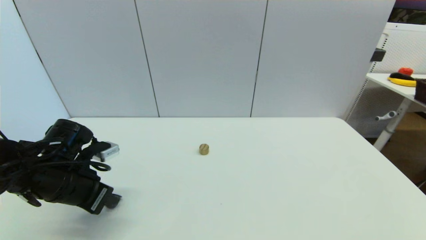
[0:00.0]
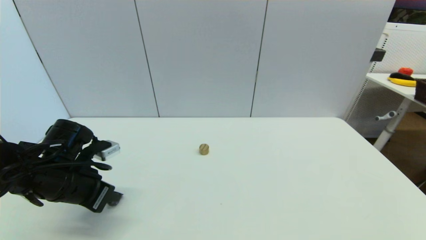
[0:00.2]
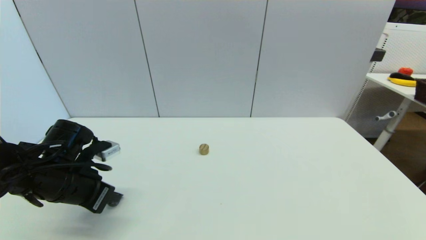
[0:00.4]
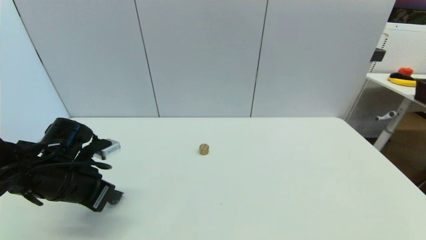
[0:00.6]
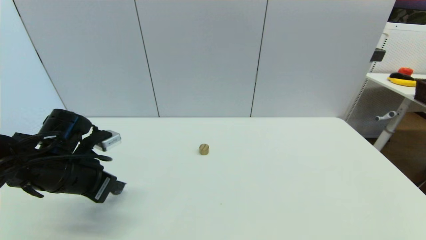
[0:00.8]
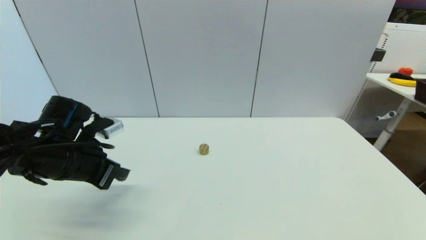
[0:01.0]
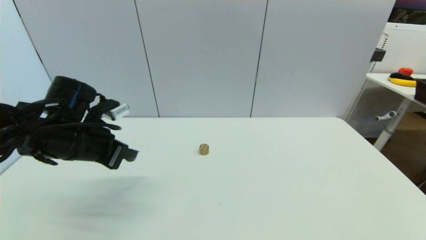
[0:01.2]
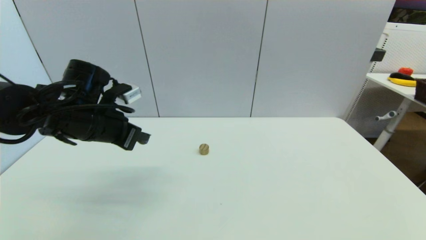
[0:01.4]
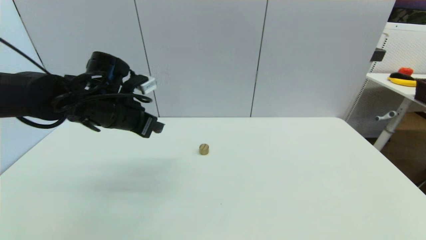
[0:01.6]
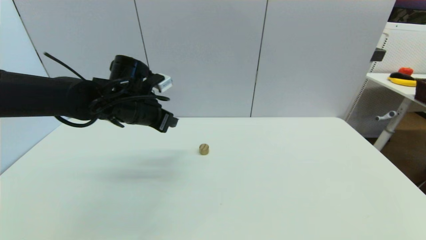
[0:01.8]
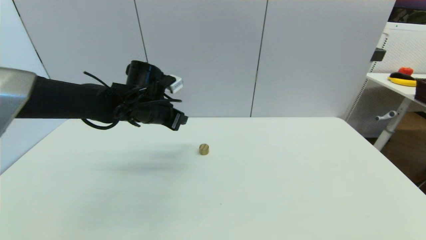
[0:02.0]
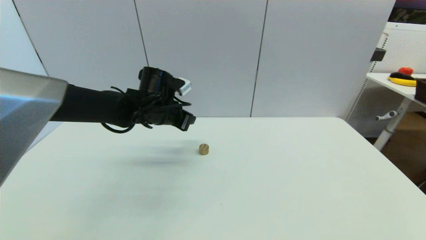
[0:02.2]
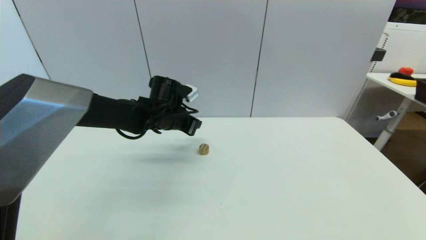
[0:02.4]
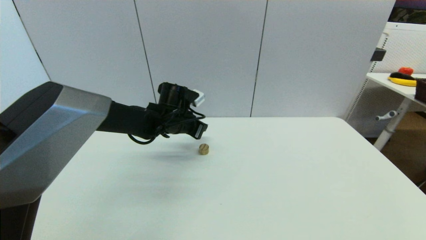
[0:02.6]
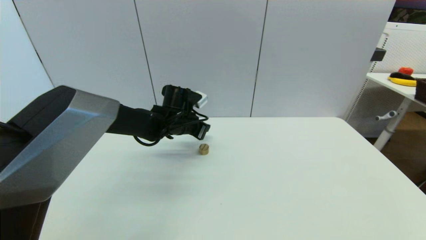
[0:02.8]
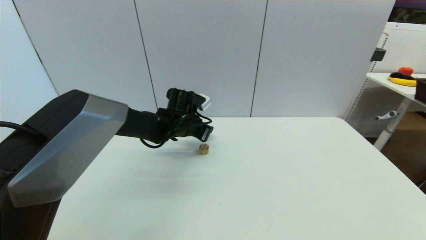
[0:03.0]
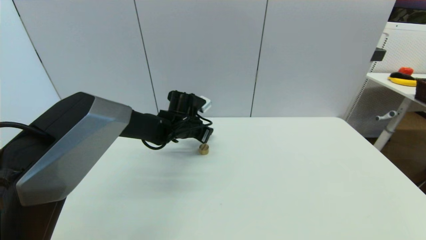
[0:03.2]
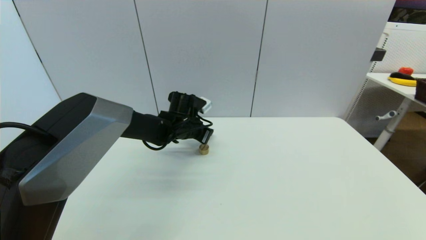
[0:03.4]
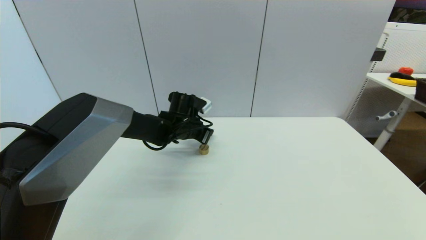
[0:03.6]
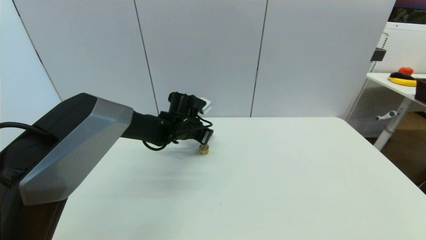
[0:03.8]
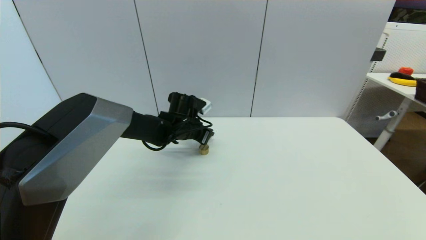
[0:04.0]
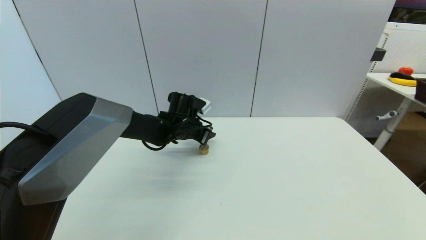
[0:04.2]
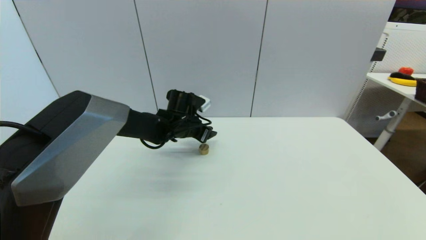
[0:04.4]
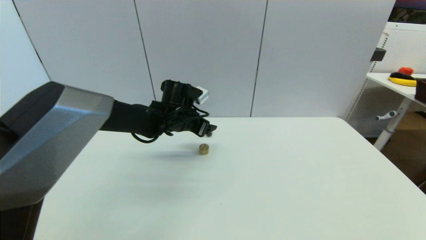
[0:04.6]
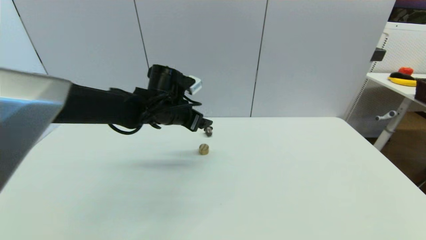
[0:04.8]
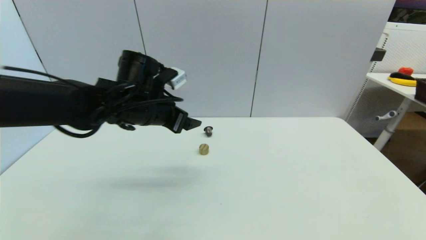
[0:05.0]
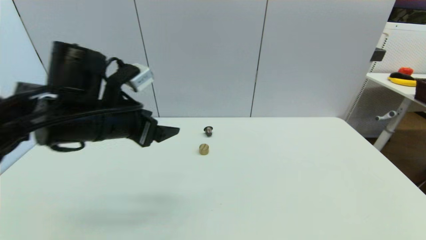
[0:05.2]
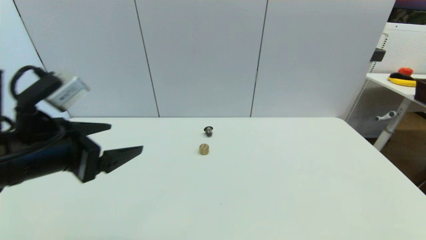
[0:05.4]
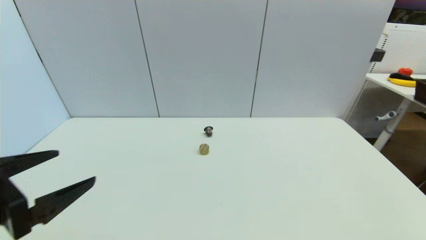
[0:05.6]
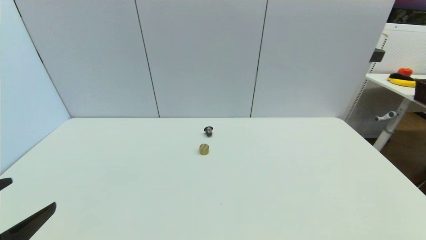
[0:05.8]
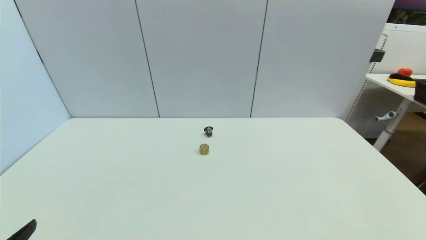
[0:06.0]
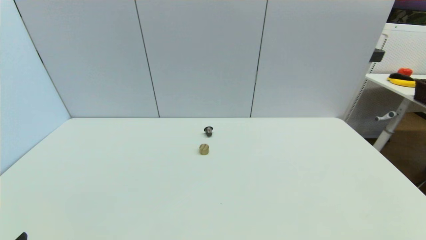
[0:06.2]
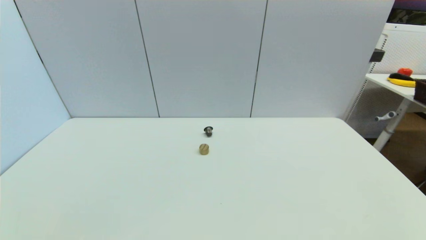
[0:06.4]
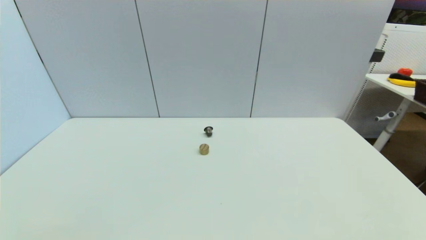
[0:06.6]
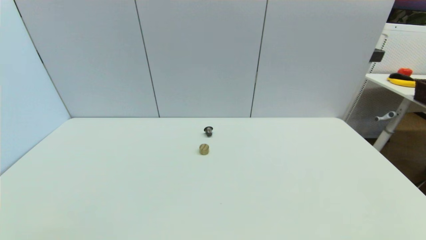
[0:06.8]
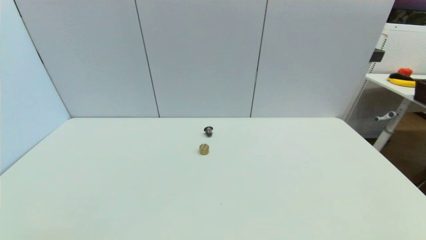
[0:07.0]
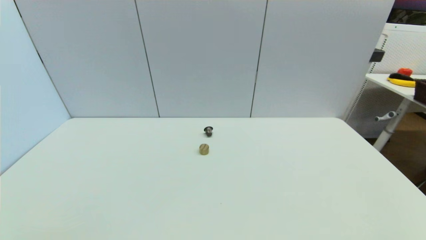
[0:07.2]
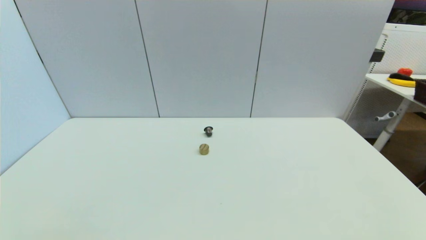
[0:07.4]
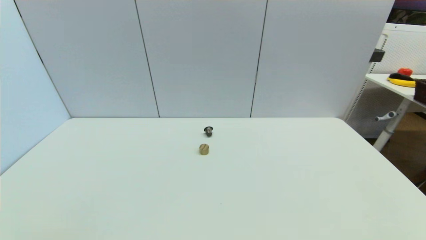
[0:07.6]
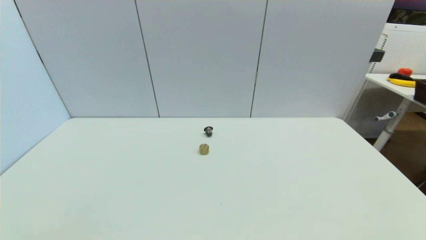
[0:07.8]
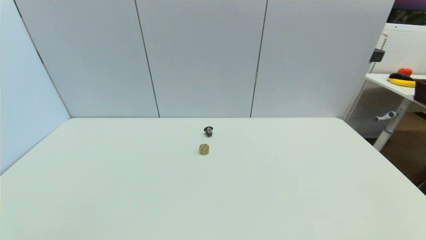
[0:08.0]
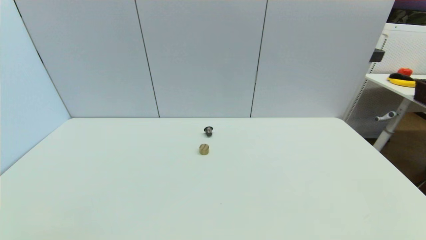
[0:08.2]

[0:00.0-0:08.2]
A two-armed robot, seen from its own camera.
Step, 0:01.0 to 0:04.2: Place the coffee capsule on the table with left gripper.
0:00.0 to 0:01.6: The left gripper shifts some 15 cm forward, upward and to the right.
0:01.6 to 0:03.2: The left gripper is displaced to the right, downward and forward by some 20 cm.
0:03.2 to 0:05.0: The left gripper heads backward, upward and to the left, covering approximately 20 cm, and opens its fingers.
0:05.0 to 0:06.6: The left gripper travels backward, to the left and downward by some 40 cm.

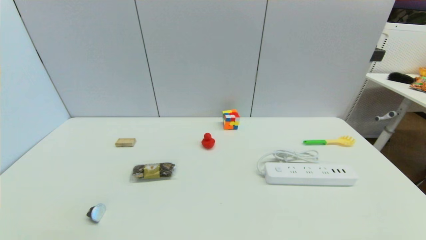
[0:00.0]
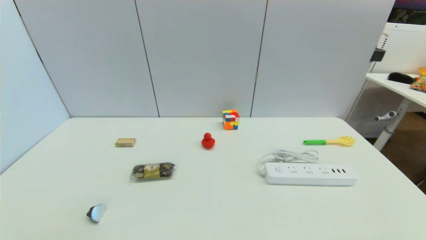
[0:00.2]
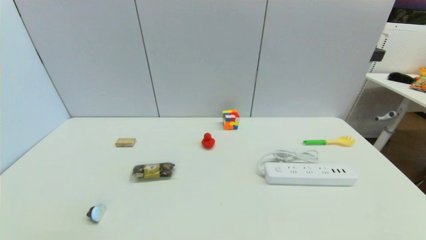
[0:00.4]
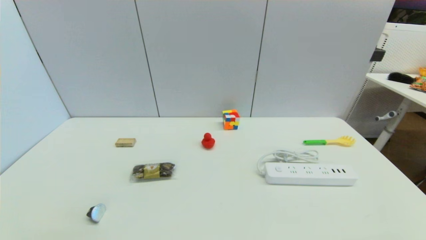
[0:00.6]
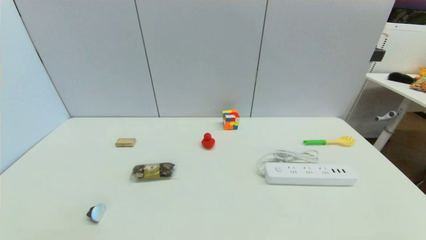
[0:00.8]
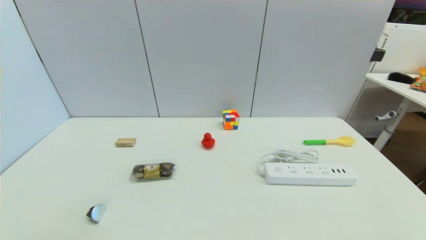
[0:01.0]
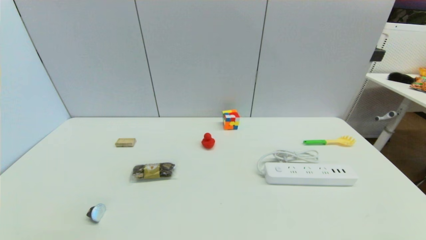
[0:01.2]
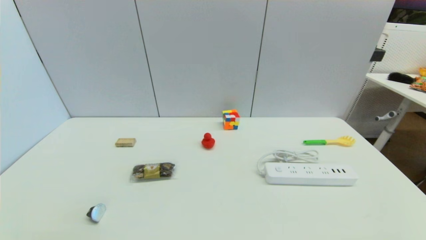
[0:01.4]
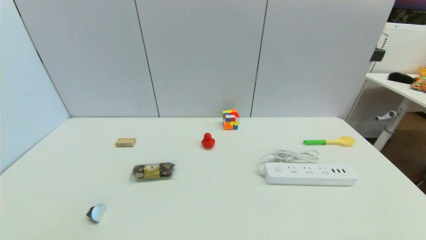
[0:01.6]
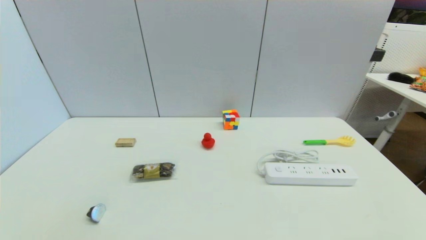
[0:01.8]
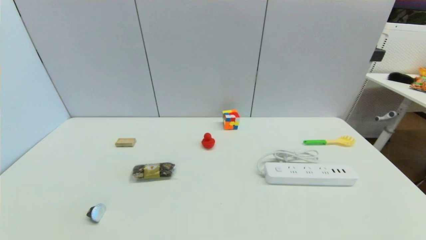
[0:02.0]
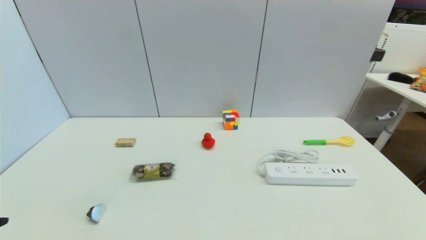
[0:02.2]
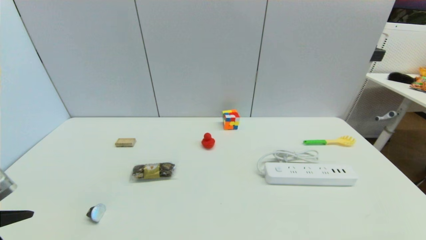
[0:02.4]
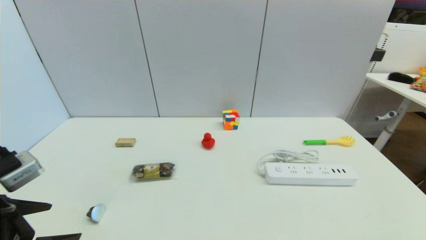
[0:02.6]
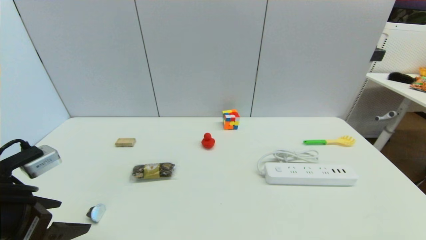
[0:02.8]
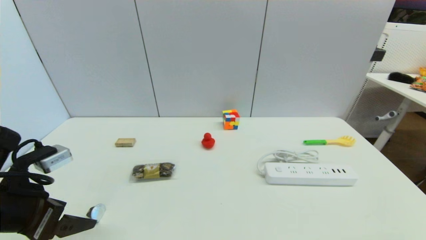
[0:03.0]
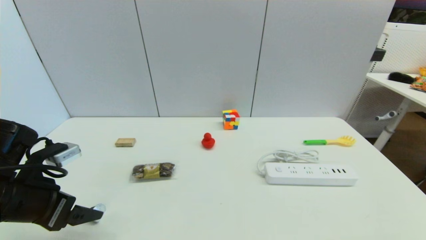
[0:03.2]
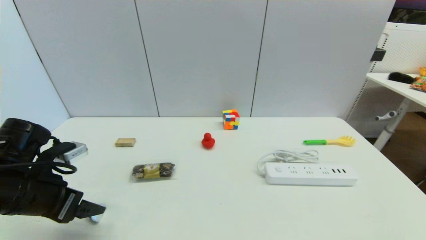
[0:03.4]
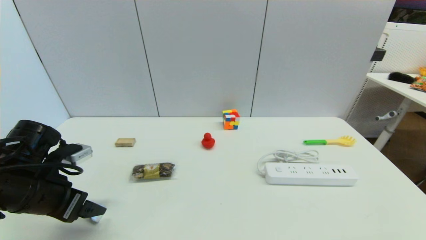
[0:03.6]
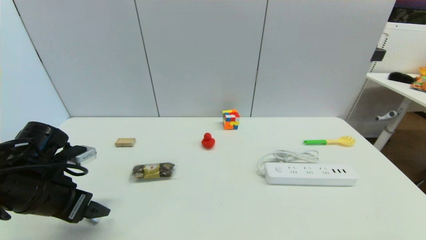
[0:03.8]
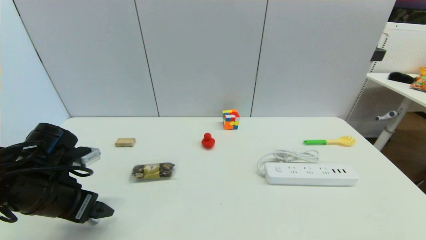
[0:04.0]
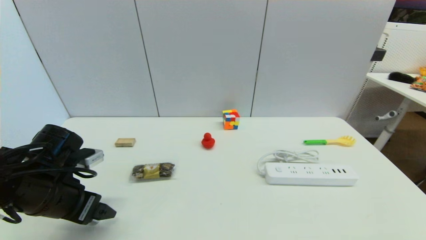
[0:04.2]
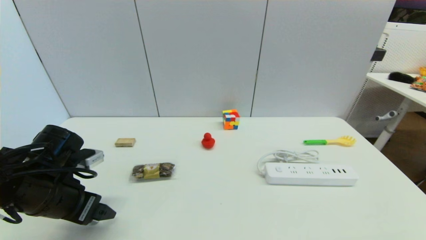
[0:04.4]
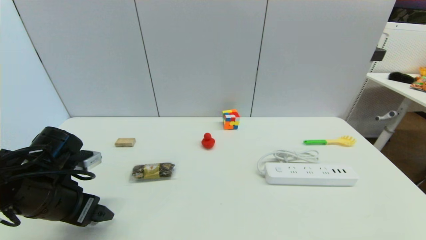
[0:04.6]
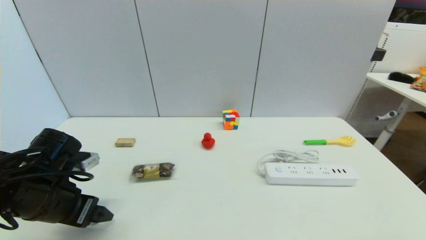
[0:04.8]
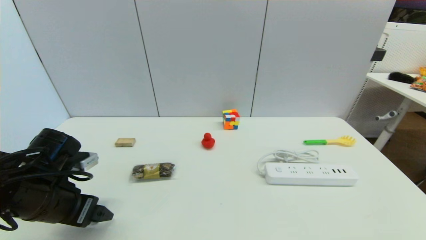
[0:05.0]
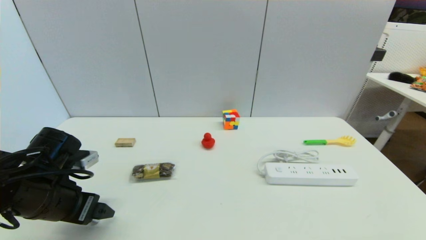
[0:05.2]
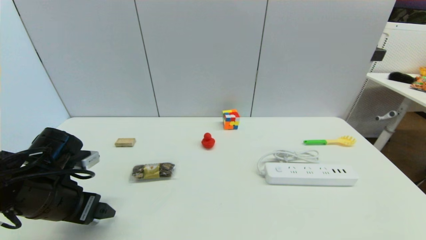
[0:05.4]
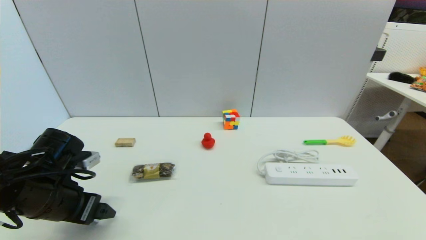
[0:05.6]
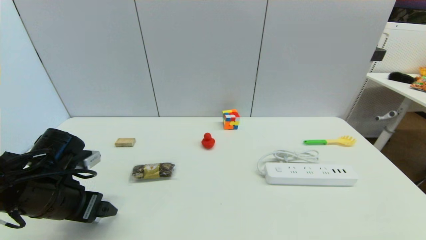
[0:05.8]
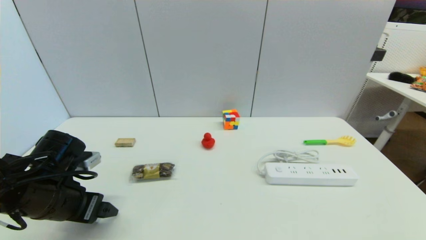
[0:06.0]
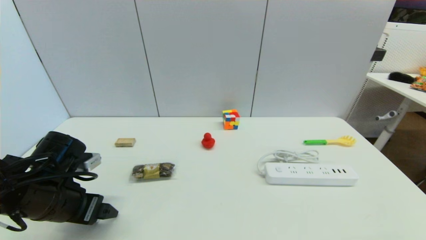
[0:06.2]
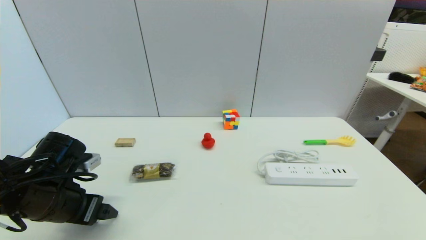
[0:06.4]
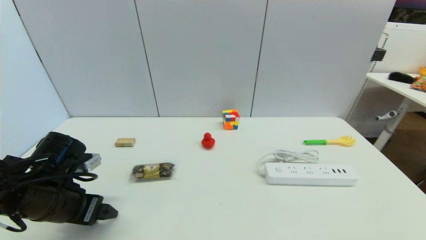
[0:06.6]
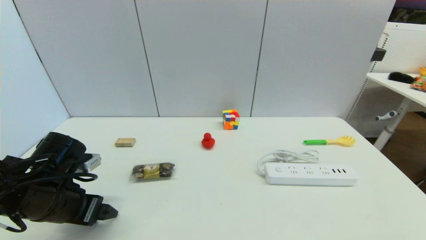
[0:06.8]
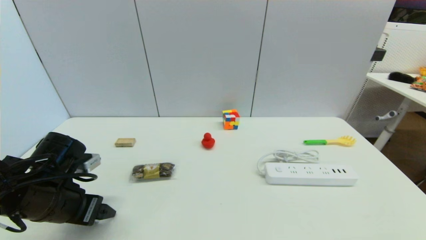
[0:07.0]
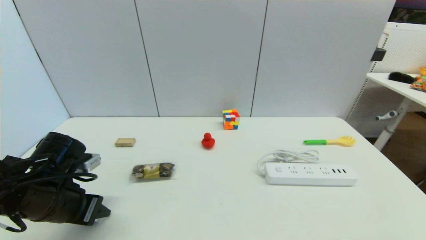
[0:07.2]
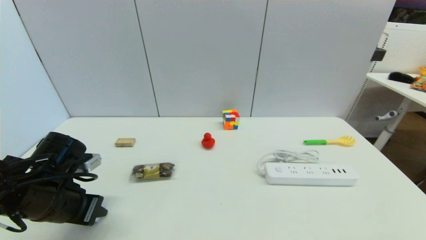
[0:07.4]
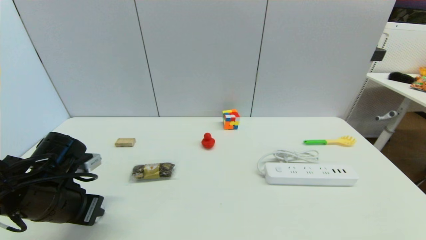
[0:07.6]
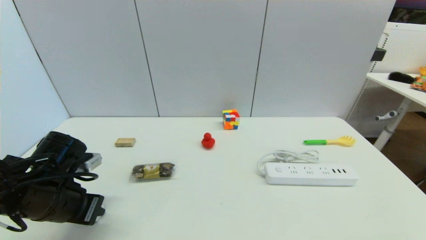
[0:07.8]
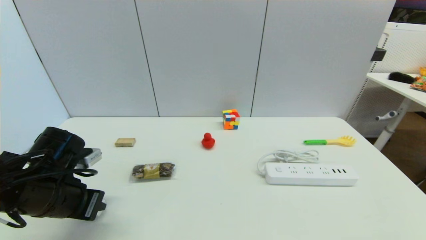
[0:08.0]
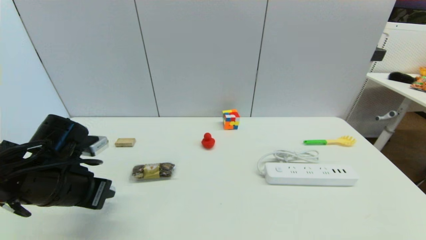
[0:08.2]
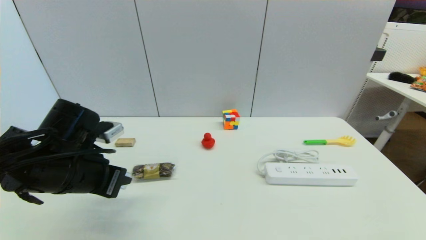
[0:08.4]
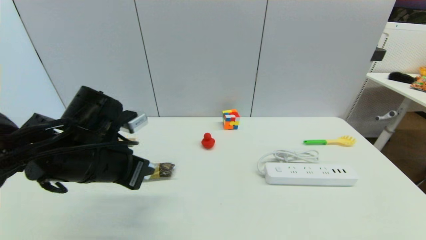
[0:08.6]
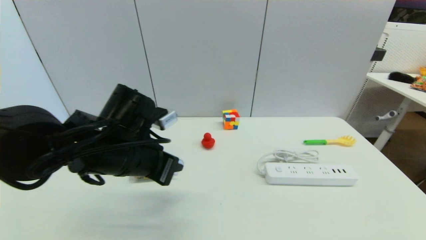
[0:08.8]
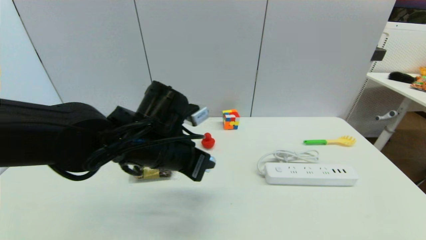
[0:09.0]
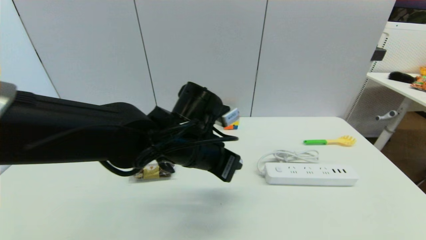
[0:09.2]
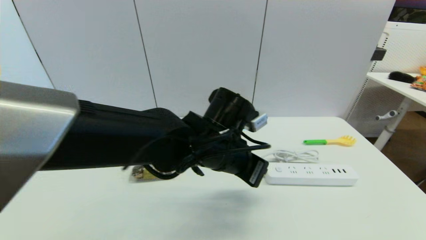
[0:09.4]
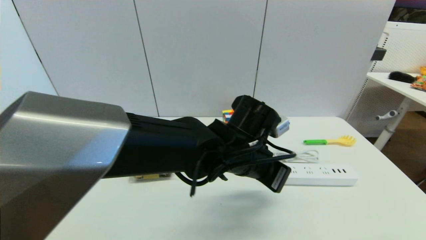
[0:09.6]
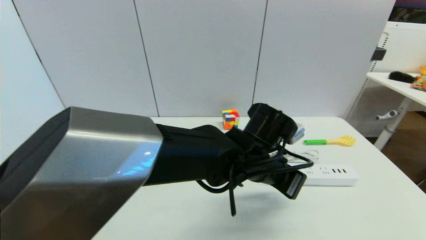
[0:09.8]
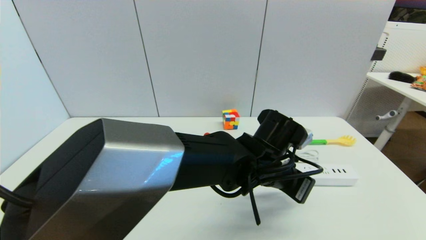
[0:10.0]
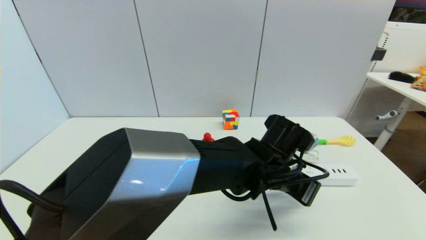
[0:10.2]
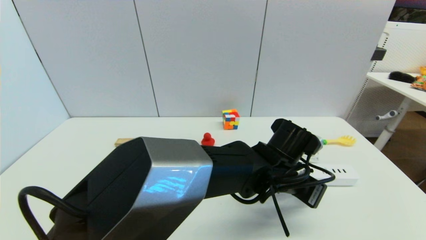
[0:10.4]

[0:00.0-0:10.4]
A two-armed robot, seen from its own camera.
Step, 0:02.2 to 0:07.6: Grasp the coffee capsule with left gripper.
0:00.0 to 0:01.4: Neither gripper changes place.
0:01.4 to 0:03.0: The left gripper heads forward and upward, covering some 20 cm.
0:03.0 to 0:04.4: The left gripper ends up approximately 5 cm from where it was.
0:04.4 to 0:06.0: The grippers stay close to where they were, moving slightly.
0:06.0 to 0:07.4: The left gripper closes its fingers.
0:07.4 to 0:09.0: The left gripper goes approximately 20 cm to the right.
0:09.0 to 0:10.4: The left gripper travels to the right by roughly 20 cm.
